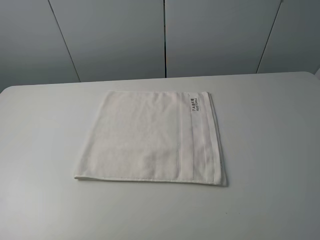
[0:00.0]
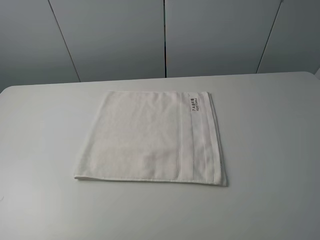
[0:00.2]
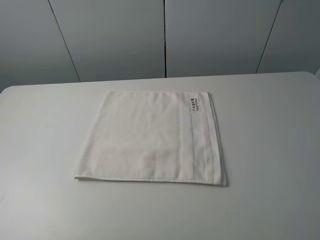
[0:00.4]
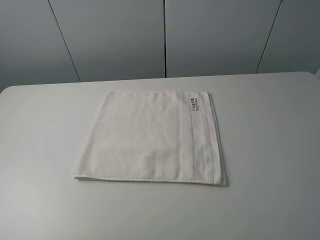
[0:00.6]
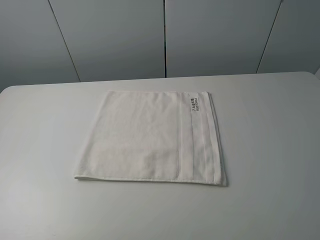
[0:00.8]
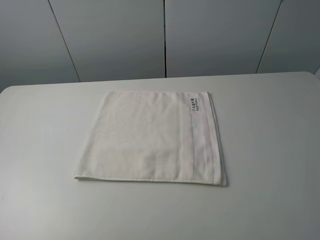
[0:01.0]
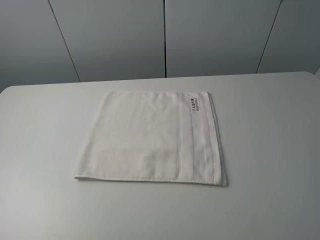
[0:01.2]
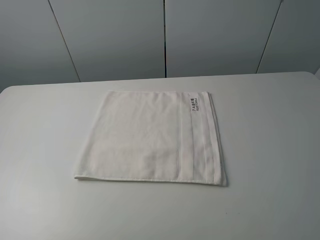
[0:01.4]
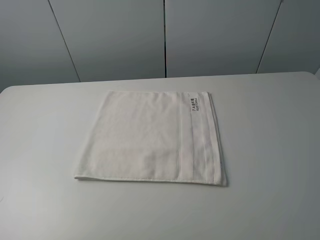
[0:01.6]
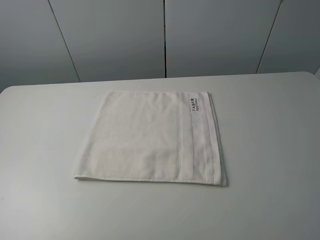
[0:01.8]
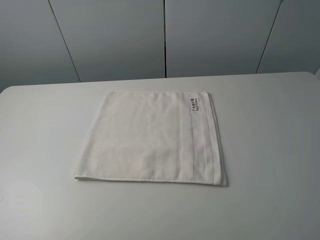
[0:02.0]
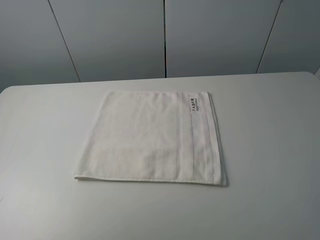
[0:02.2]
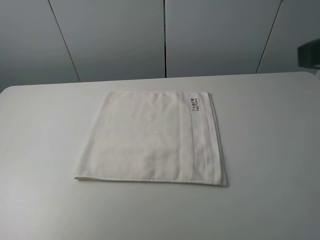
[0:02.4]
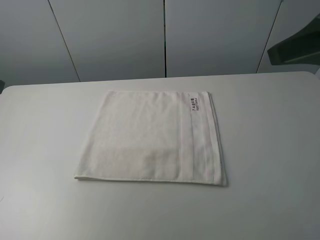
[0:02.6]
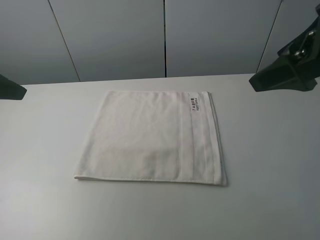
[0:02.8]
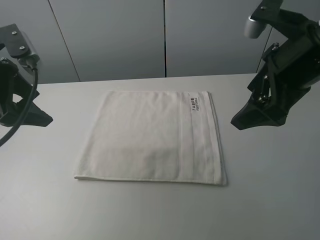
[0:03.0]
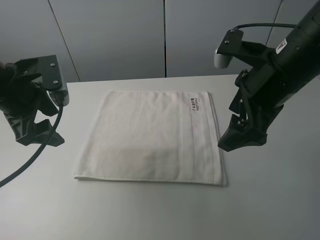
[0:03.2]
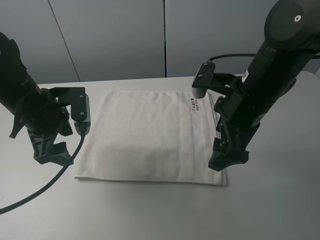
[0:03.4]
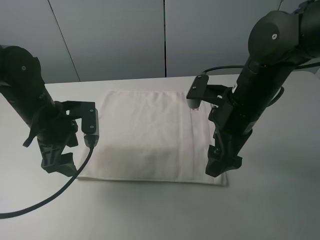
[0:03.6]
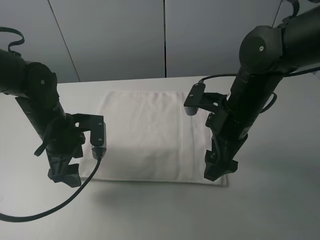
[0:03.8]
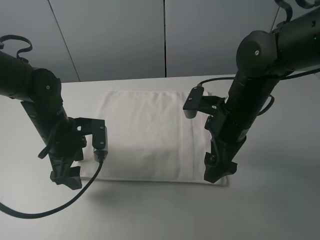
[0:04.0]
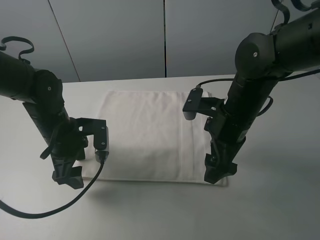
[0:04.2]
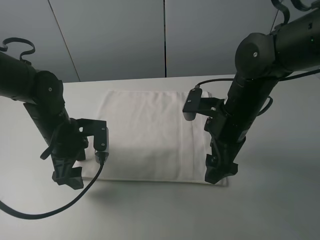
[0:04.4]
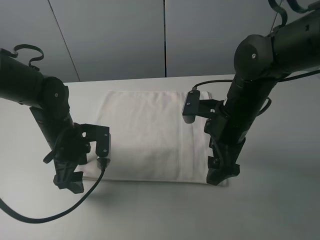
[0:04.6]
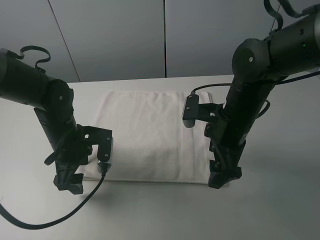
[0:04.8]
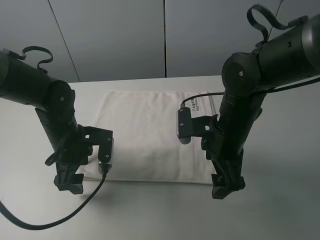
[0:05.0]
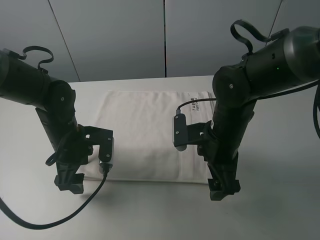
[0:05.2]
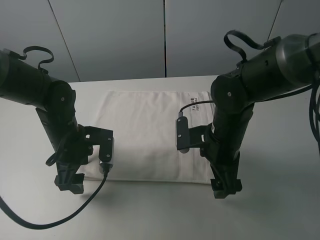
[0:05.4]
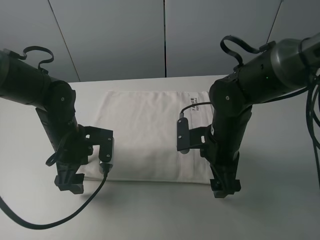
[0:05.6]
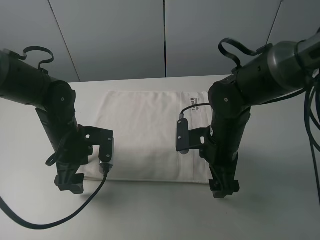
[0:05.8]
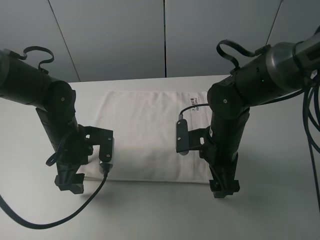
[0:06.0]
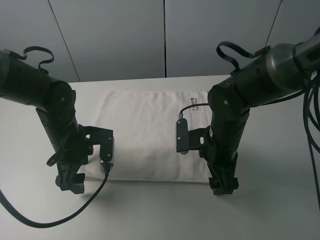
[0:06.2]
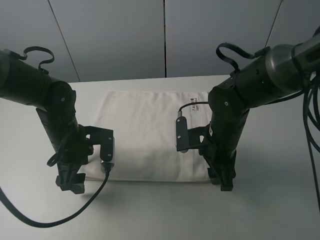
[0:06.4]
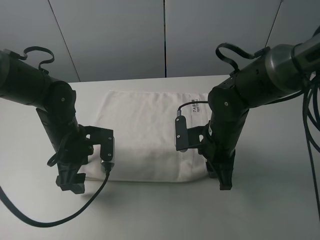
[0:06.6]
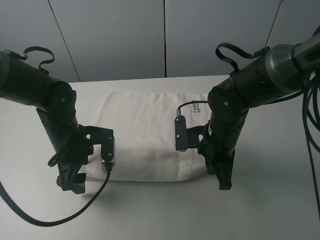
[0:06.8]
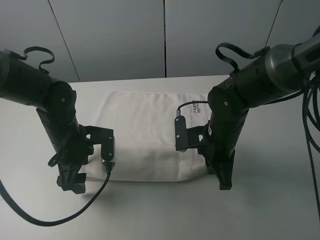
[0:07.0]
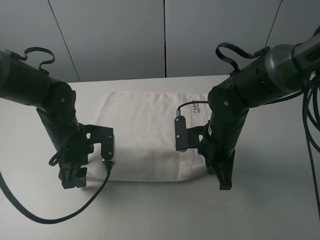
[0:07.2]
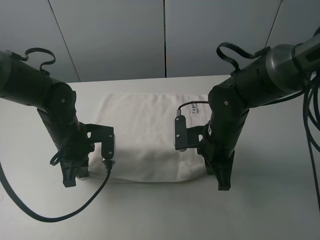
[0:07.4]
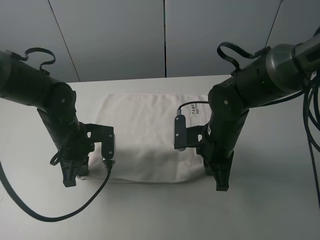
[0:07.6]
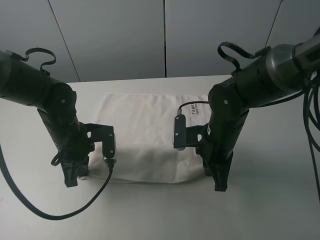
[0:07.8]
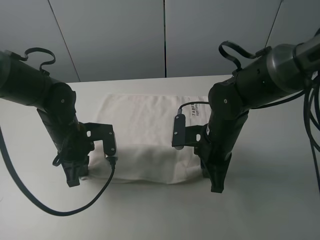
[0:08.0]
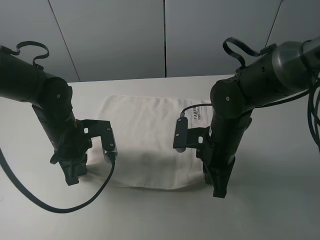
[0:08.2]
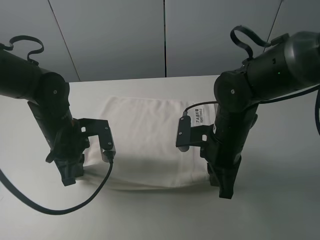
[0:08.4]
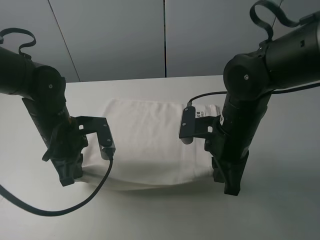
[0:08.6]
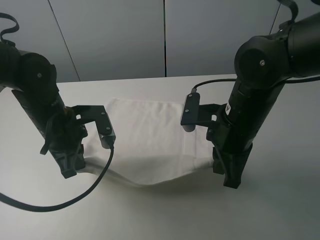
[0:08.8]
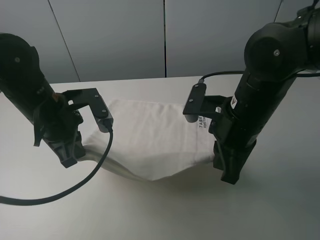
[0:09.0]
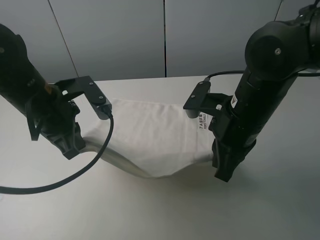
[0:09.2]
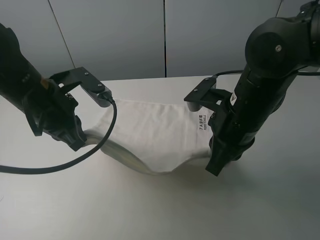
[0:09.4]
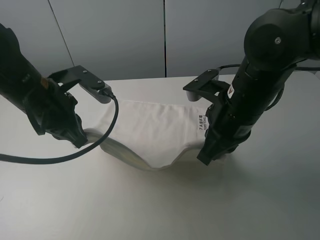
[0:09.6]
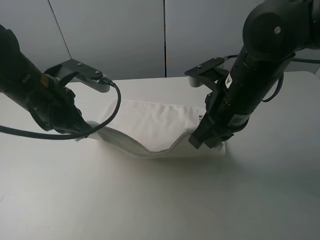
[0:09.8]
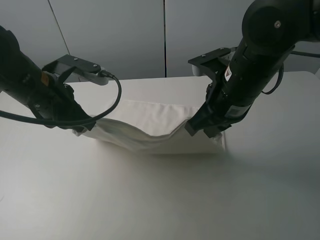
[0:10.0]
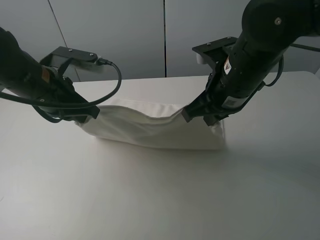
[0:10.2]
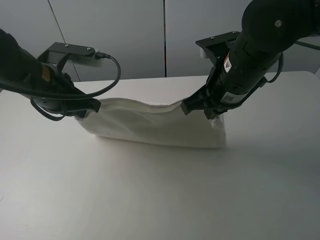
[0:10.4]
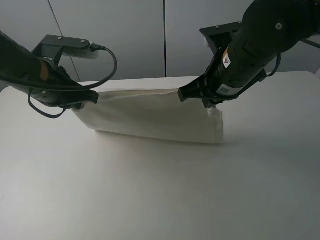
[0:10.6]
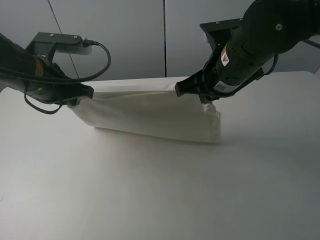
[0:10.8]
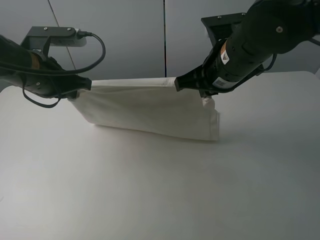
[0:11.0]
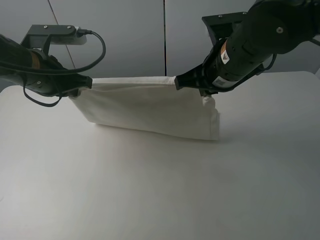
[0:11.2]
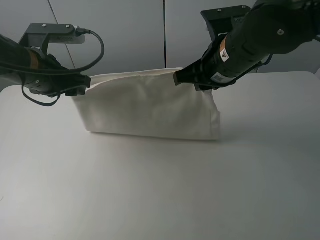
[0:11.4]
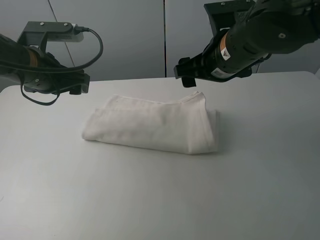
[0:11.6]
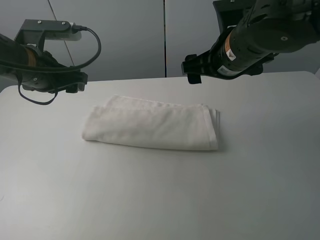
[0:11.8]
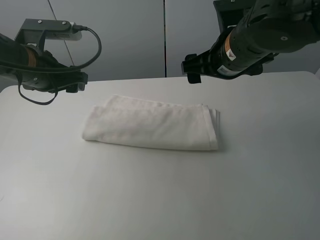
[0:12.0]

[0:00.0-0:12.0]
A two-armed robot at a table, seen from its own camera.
Task of the whole recording: fold the towels on the table.
Step, 0:00.0 to 0:06.8: Grasp the white towel with the right gripper.
Step, 0:07.0 to 0:07.4: Grasp the white towel with the left gripper.
Step, 0:07.6 to 0:11.6: Fold the white towel upwards with the right gripper.
0:00.0 to 0:01.6: Both grippers stay about where they are.
0:01.6 to 0:03.0: The left gripper heads forward and to the right, covering approximately 25 cm. Meanwhile the right gripper goes approximately 25 cm forward and to the left.
0:03.0 to 0:04.4: The left gripper moves downward and to the right, approximately 15 cm. Meanwhile the right gripper goes roughly 15 cm downward and to the left.
0:04.4 to 0:06.0: The right gripper goes approximately 5 cm downward.
0:06.0 to 0:07.6: The left gripper closes. Meanwhile the right gripper closes up.
0:07.6 to 0:09.0: The grippers both shift upward by approximately 10 cm.
0:09.0 to 0:10.4: The right gripper moves roughly 5 cm.
0:10.4 to 0:12.0: The right gripper opens; the left gripper opens.

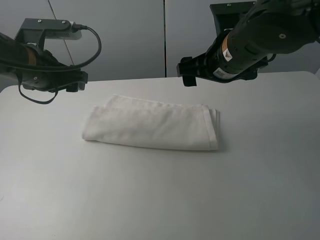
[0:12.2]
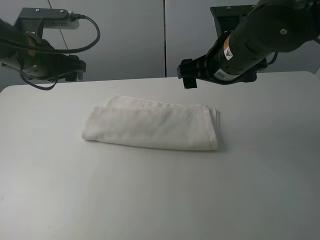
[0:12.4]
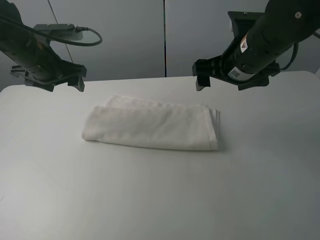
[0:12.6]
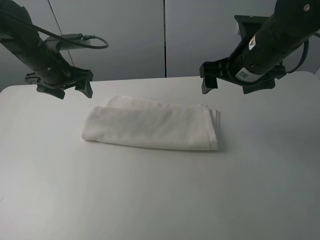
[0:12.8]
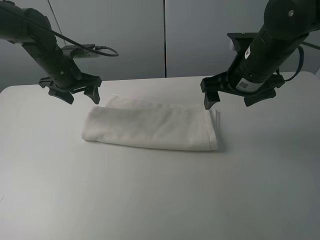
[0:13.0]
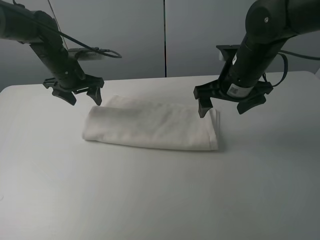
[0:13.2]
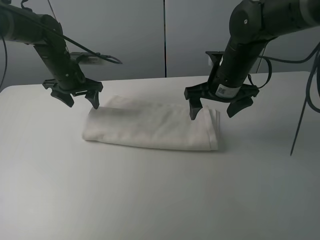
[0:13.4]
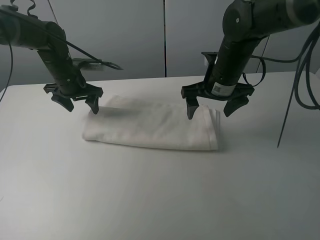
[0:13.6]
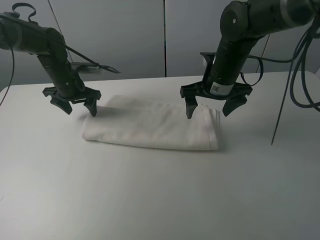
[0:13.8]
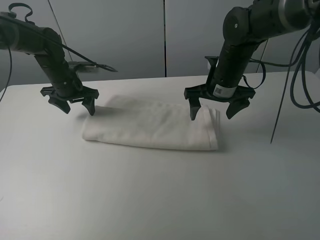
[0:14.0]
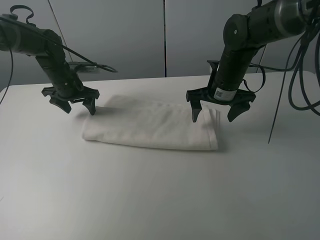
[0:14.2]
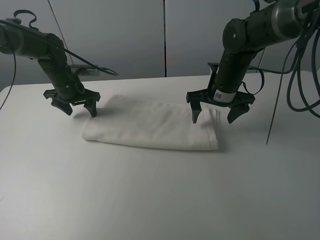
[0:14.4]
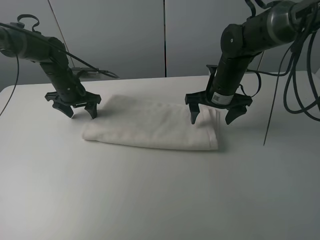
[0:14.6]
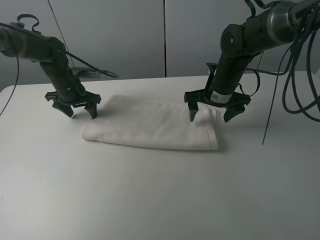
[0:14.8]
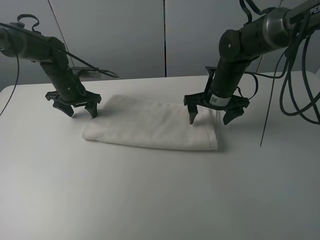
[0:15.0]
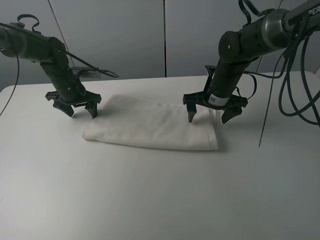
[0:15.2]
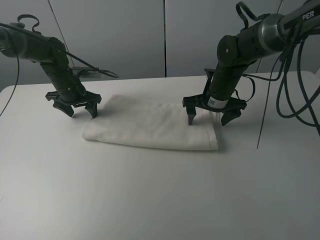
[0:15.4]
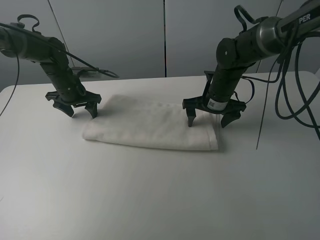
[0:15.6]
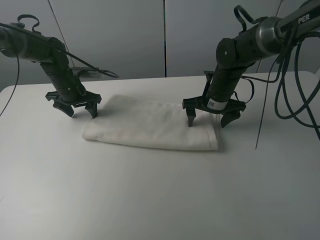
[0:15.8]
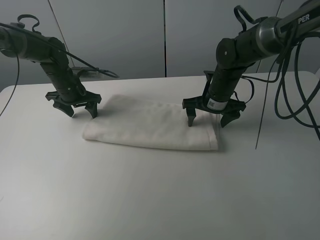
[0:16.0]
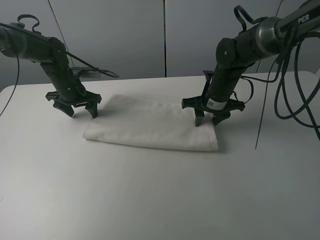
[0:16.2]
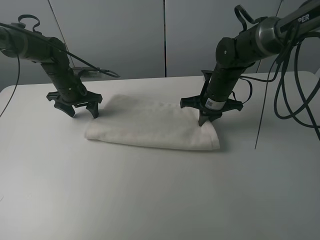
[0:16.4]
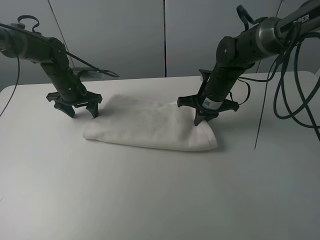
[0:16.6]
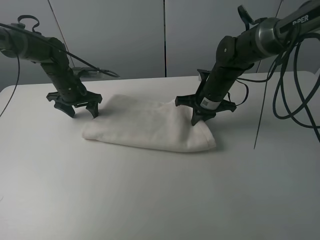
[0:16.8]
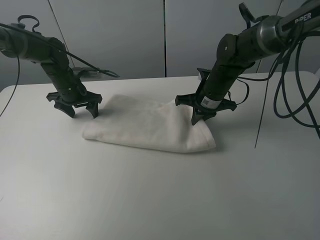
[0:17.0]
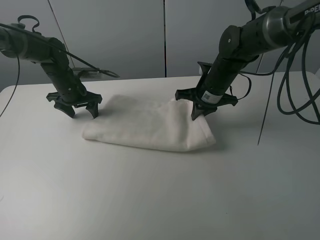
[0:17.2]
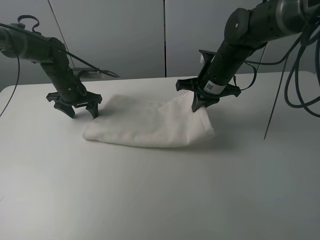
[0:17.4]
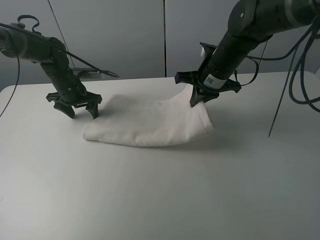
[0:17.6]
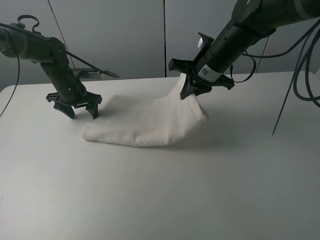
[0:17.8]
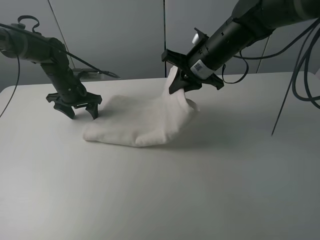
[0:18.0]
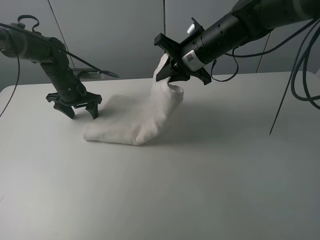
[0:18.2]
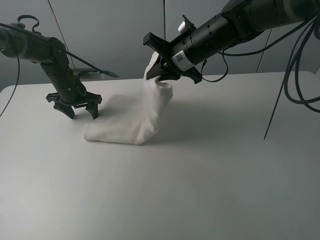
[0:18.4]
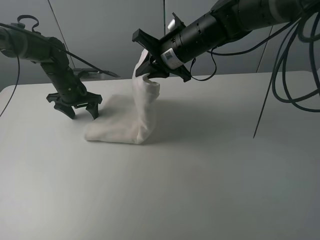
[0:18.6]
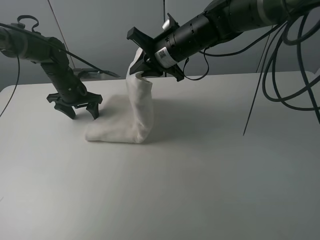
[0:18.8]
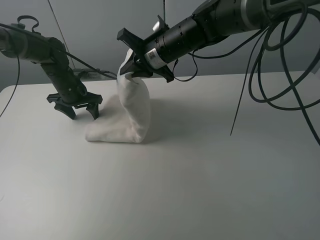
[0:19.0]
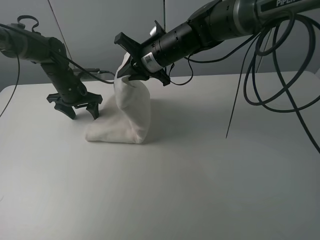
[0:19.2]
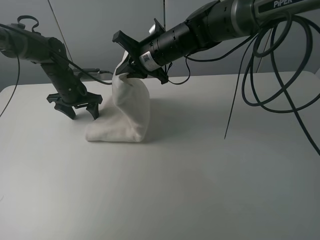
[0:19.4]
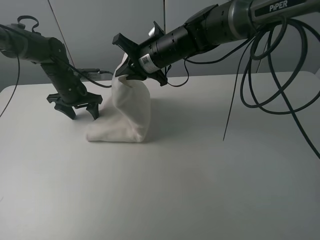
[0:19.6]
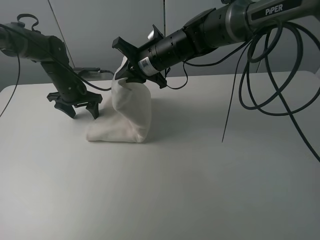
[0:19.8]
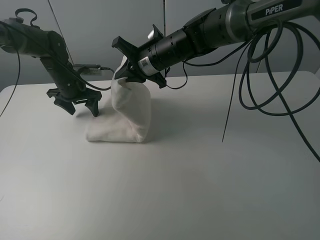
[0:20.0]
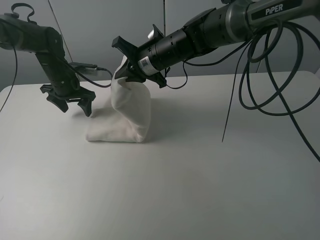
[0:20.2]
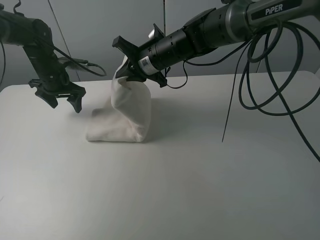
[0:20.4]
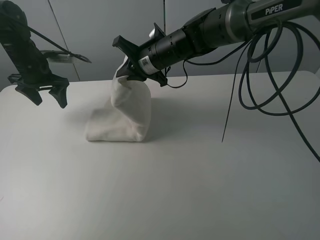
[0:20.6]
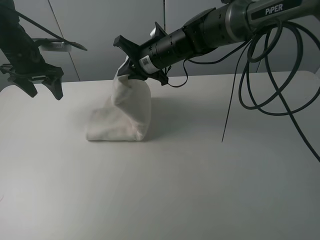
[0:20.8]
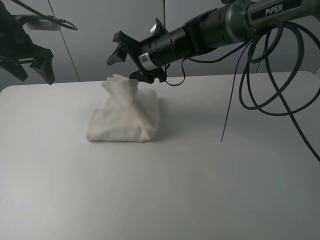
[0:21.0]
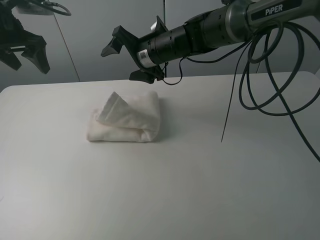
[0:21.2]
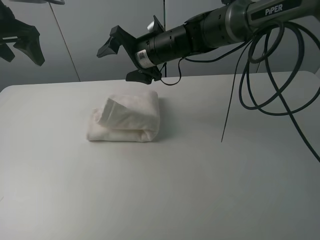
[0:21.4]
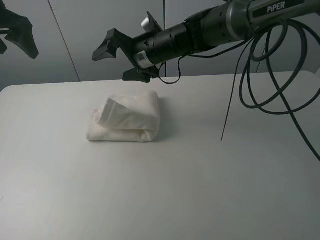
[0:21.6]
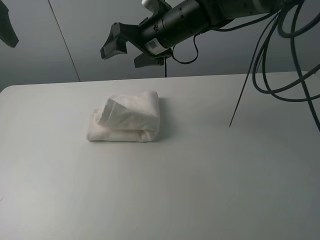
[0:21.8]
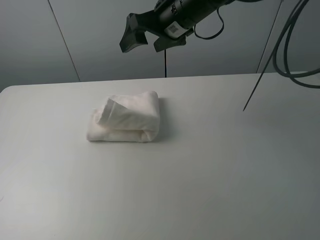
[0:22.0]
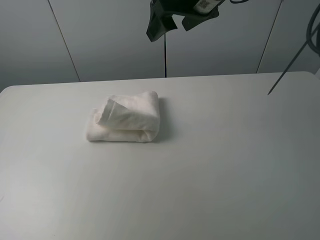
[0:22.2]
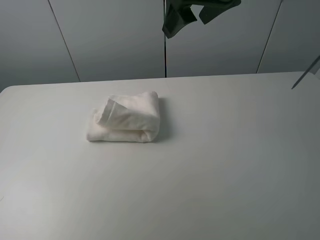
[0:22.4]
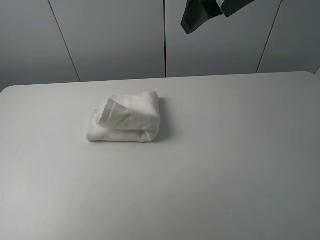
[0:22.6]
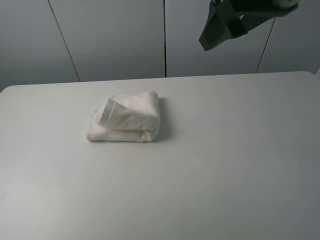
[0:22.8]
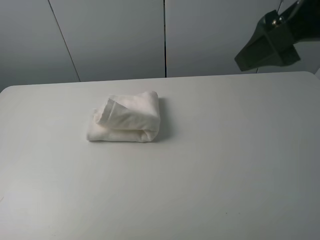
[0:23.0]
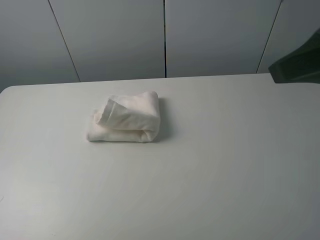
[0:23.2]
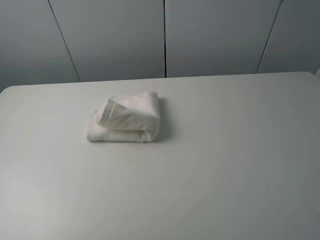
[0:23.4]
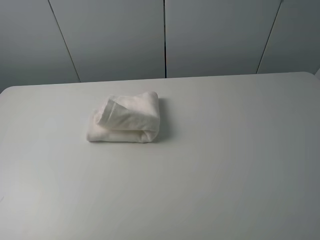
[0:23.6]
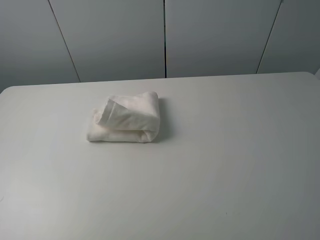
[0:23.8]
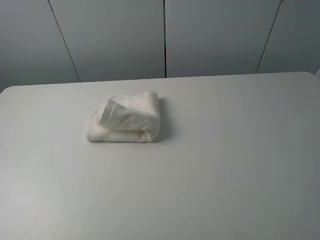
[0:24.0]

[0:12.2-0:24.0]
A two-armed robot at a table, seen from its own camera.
Task of the whole recording: fold the towels on the table.
Step, 0:12.2 to 0:14.6: Press on the white towel with the left gripper.
Step, 0:14.8 to 0:21.2: Fold the white towel from right to left with right gripper.
0:12.2 to 0:13.6: The right gripper shifts roughly 10 cm downward and forward; the left gripper goes roughly 15 cm forward and downward.
0:13.6 to 0:15.2: The right gripper heads downward, covering approximately 5 cm.
0:15.2 to 0:16.6: The right gripper closes its fingers.
0:16.6 to 0:18.2: The right gripper moves upward, about 10 cm.
0:18.2 to 0:19.6: The right gripper is displaced to the left by some 10 cm.
0:19.6 to 0:21.0: The right gripper opens. The left gripper shifts approximately 20 cm upward and to the left.
0:21.0 to 0:22.6: The right gripper goes approximately 25 cm upward, to the right and backward. The left gripper shifts roughly 30 cm backward.
0:22.6 to 0:24.0: The right gripper goes approximately 30 cm backward and to the right, while the left gripper heads backward and downward, covering some 15 cm.